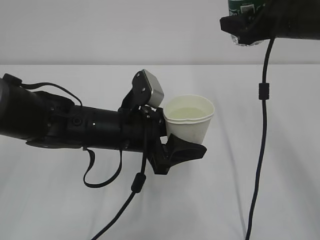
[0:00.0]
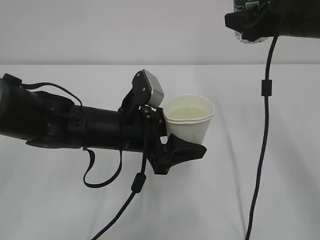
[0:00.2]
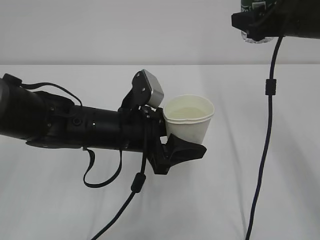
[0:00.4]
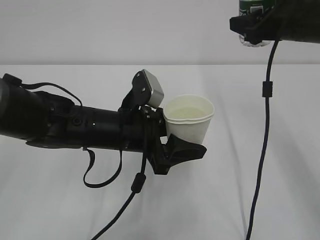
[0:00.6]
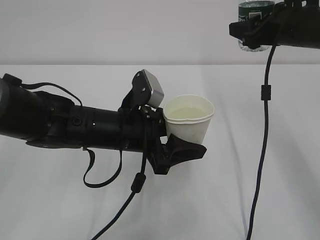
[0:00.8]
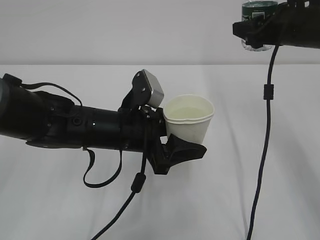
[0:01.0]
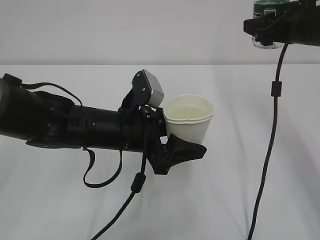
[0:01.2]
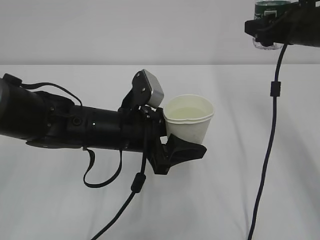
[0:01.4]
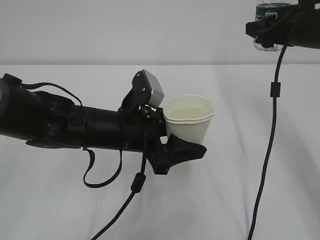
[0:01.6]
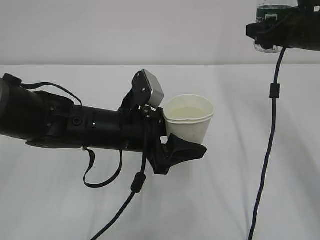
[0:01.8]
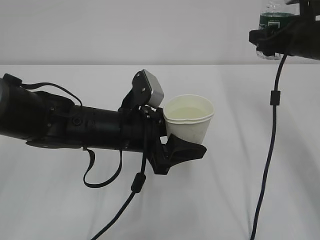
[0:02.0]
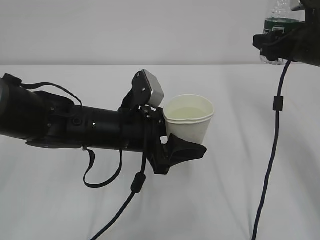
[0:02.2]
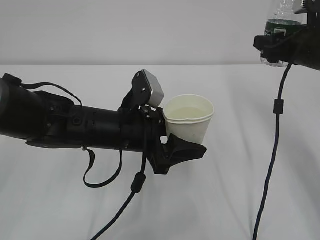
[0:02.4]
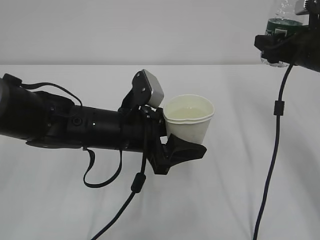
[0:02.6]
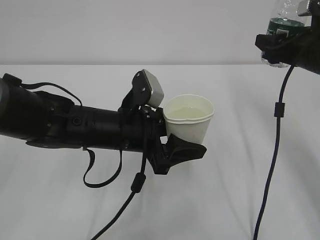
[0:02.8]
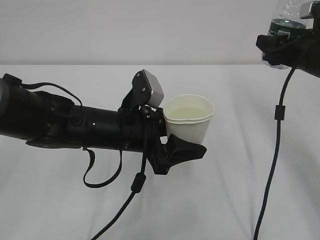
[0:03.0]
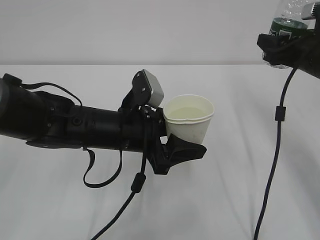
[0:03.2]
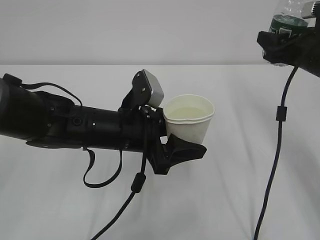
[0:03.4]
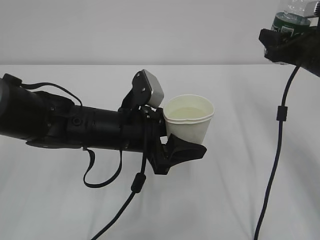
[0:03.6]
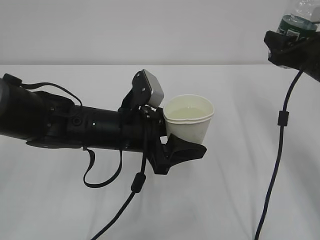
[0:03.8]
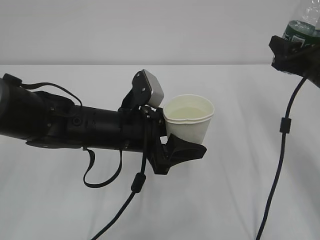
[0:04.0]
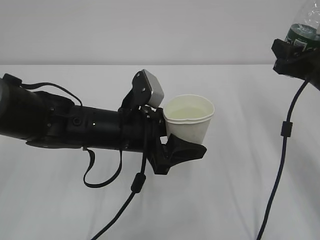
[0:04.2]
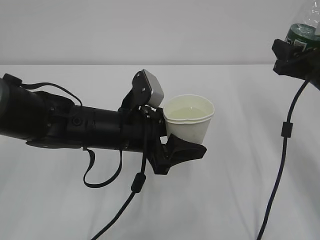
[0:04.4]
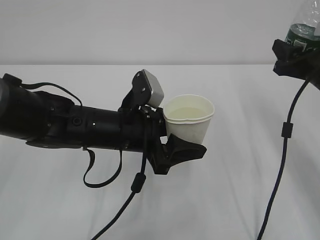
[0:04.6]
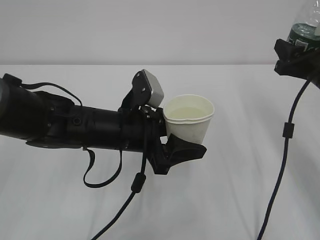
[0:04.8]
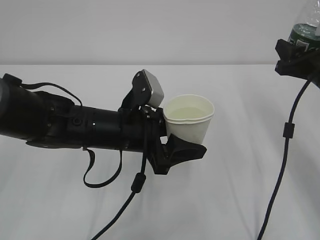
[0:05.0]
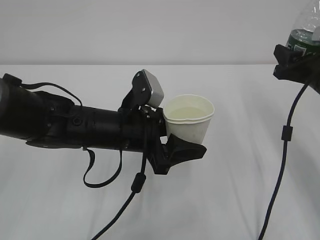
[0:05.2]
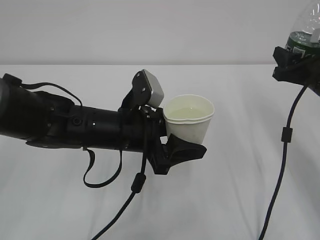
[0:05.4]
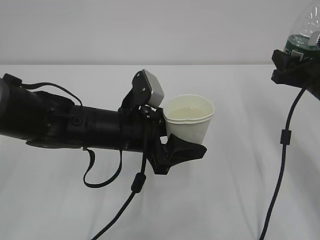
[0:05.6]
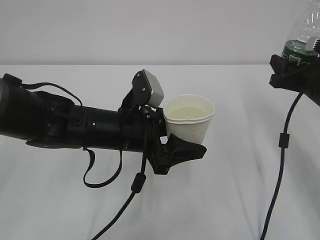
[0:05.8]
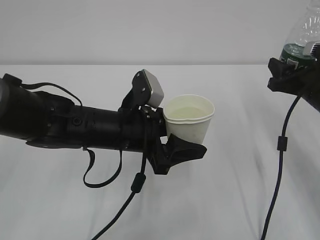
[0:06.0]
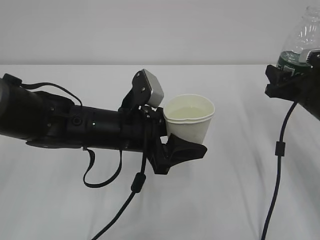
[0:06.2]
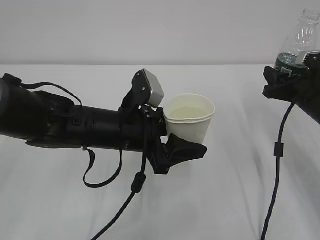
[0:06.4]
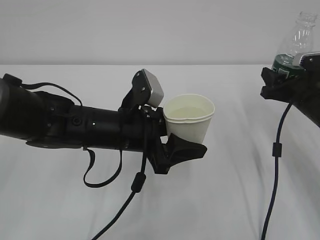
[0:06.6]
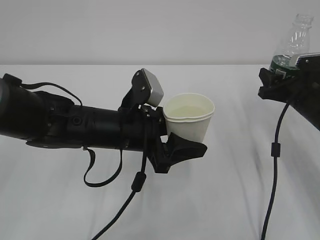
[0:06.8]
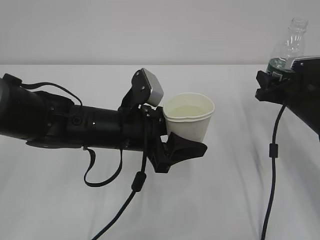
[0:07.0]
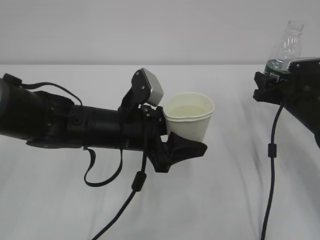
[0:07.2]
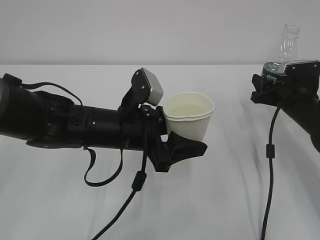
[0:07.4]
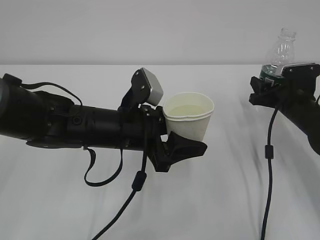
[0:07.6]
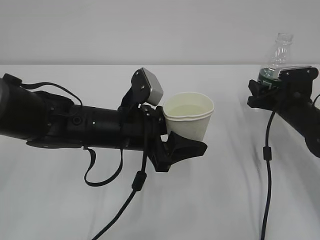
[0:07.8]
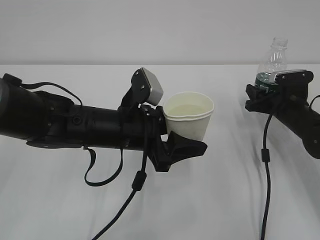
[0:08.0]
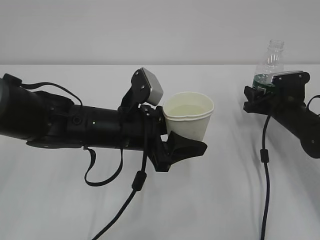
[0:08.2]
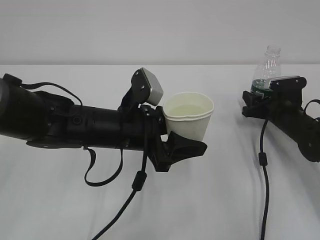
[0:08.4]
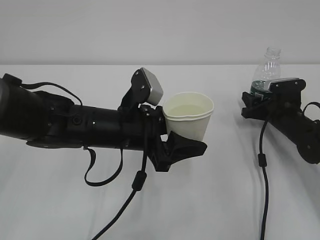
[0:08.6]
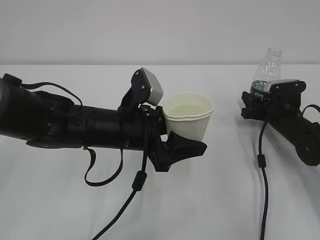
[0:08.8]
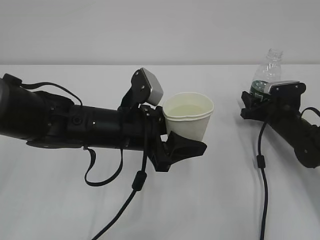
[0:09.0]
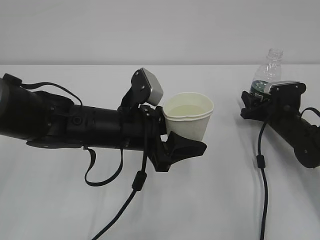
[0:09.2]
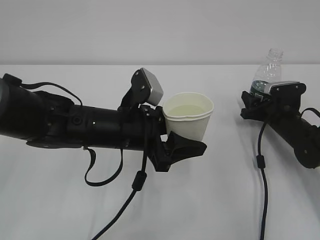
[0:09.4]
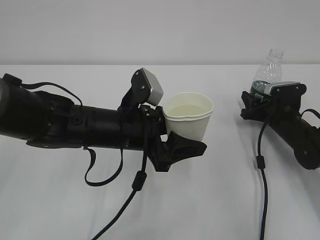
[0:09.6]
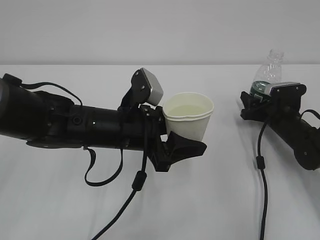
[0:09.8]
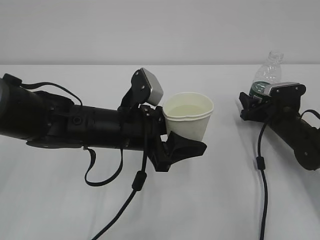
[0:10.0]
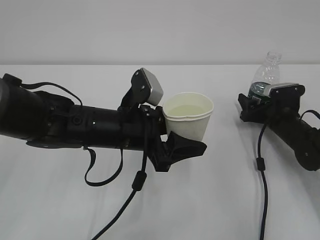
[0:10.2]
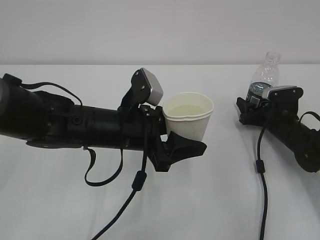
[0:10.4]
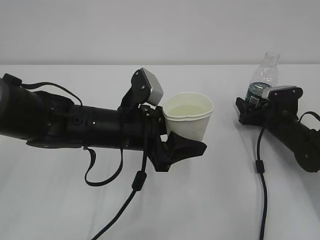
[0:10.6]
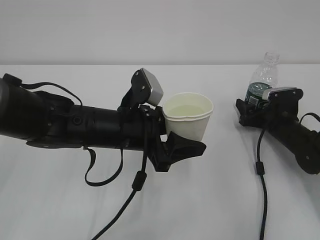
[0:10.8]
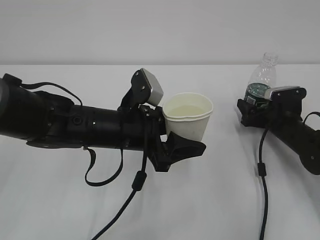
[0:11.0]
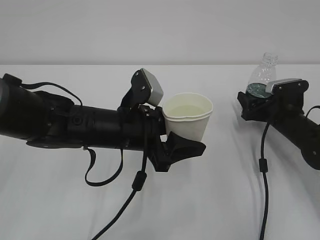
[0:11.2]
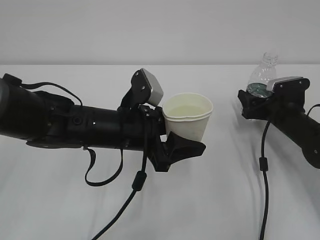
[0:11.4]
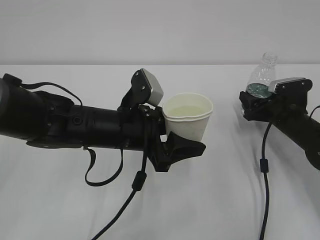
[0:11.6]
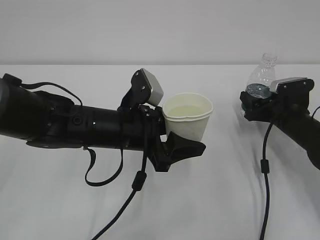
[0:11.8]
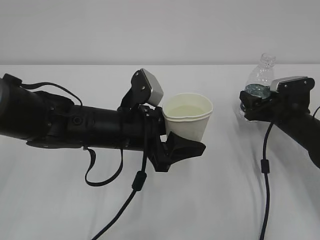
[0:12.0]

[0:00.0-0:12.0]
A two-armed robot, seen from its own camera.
0:00.0 to 0:01.6: The right gripper shifts by some 5 cm.
0:01.6 to 0:03.0: The right gripper changes place by approximately 5 cm.
0:03.0 to 0:06.0: The grippers stay close to where they were, moving slightly.
0:06.0 to 0:07.6: The right gripper travels downward and forward by roughly 10 cm.
0:07.6 to 0:09.0: The right gripper goes about 5 cm downward.
0:09.0 to 0:10.4: The right gripper opens.
0:10.4 to 0:12.0: There are only small adjustments of the grippers.

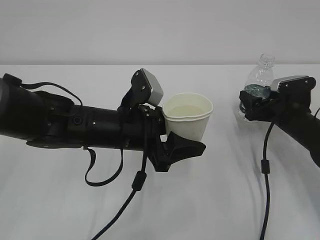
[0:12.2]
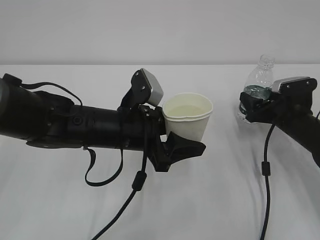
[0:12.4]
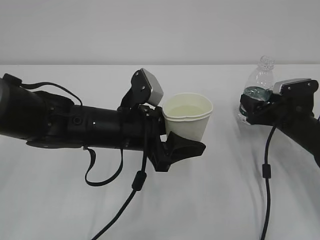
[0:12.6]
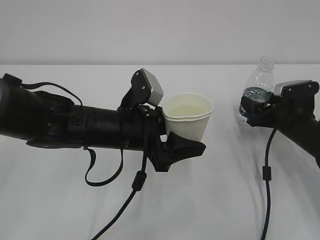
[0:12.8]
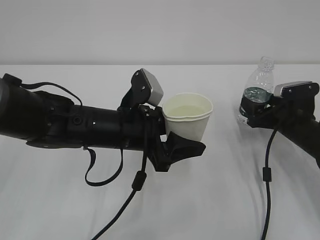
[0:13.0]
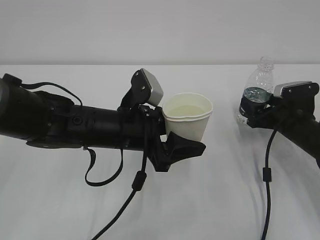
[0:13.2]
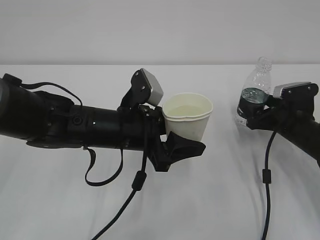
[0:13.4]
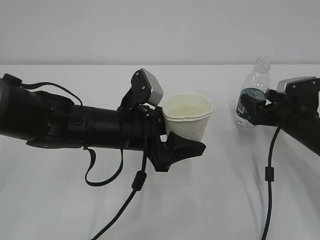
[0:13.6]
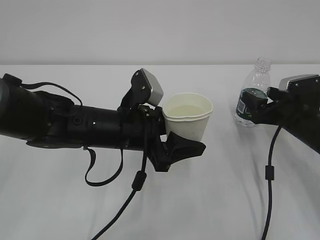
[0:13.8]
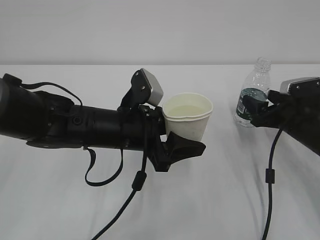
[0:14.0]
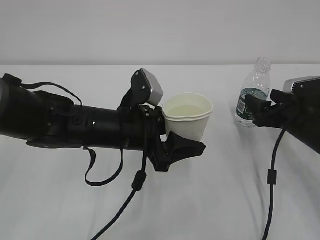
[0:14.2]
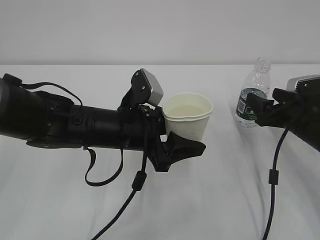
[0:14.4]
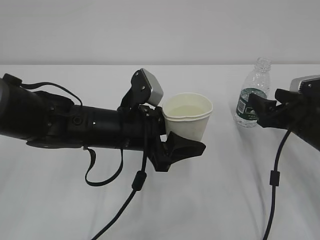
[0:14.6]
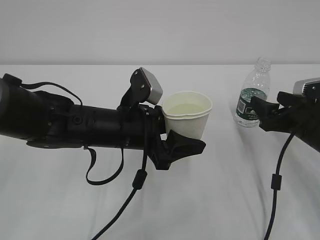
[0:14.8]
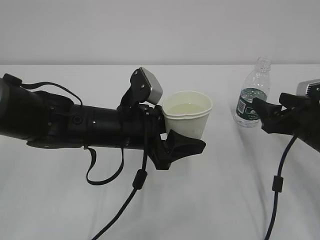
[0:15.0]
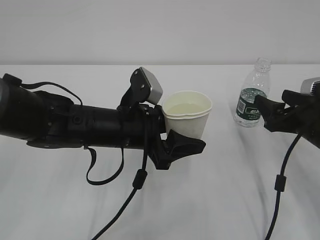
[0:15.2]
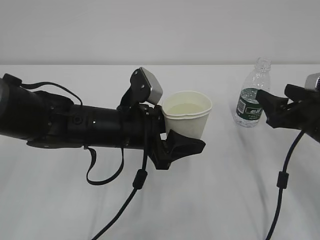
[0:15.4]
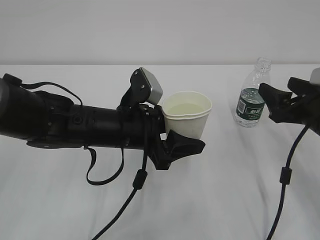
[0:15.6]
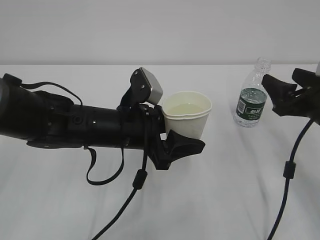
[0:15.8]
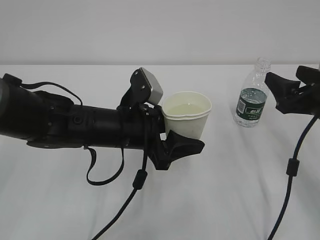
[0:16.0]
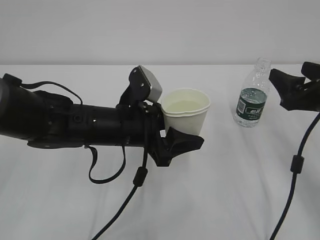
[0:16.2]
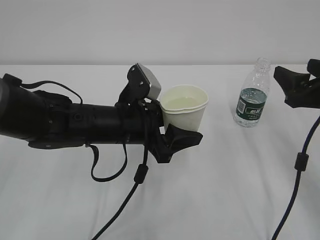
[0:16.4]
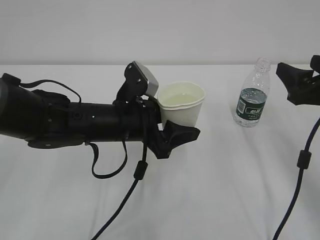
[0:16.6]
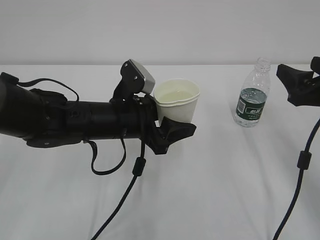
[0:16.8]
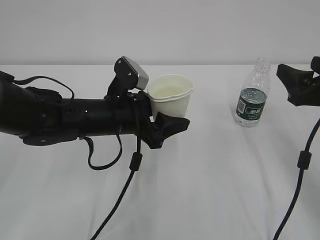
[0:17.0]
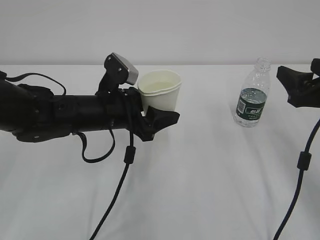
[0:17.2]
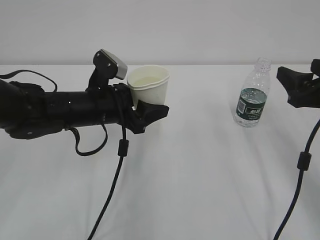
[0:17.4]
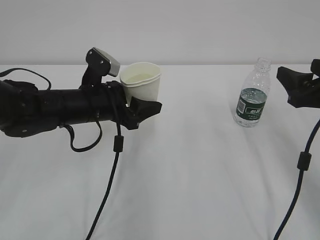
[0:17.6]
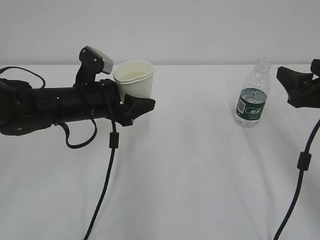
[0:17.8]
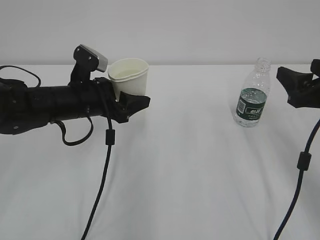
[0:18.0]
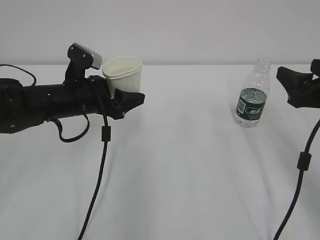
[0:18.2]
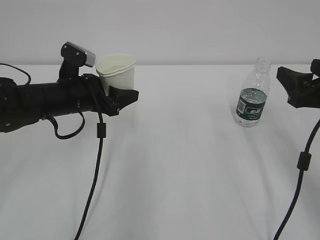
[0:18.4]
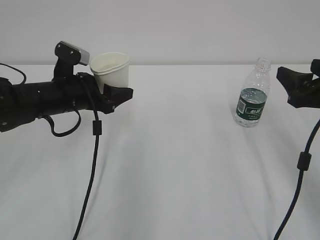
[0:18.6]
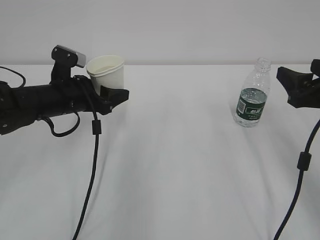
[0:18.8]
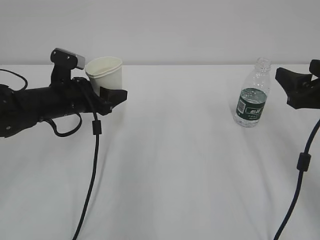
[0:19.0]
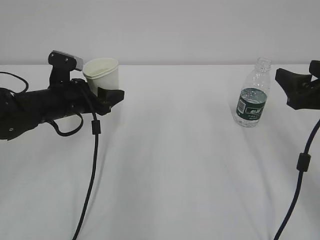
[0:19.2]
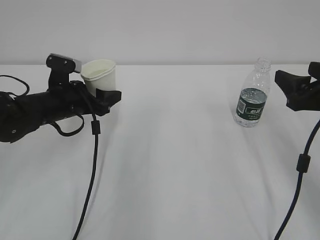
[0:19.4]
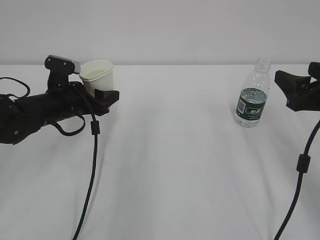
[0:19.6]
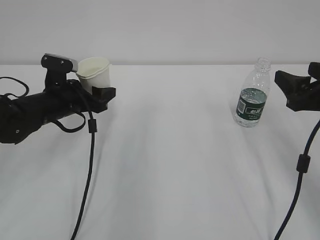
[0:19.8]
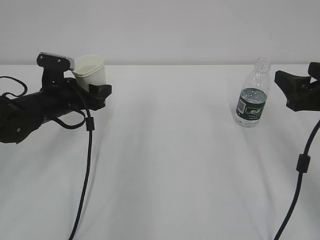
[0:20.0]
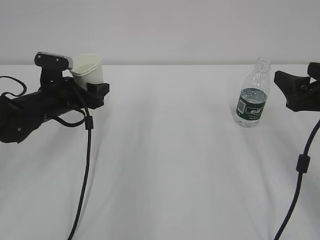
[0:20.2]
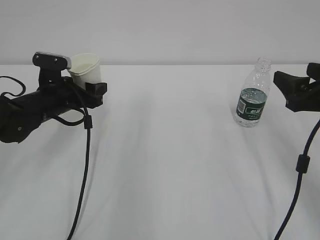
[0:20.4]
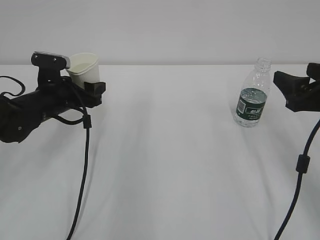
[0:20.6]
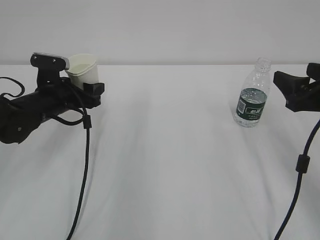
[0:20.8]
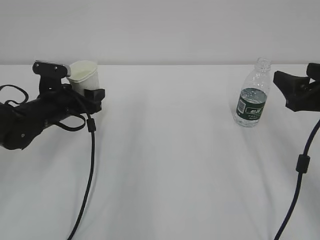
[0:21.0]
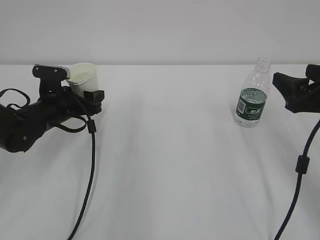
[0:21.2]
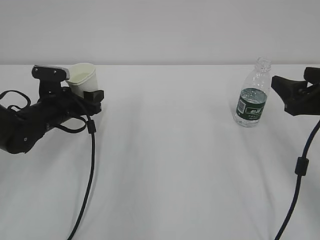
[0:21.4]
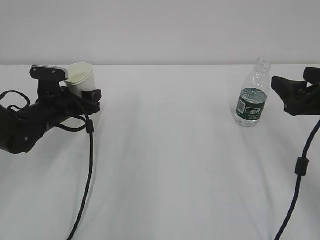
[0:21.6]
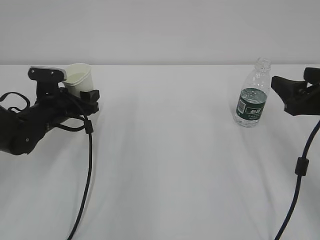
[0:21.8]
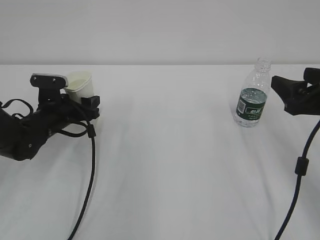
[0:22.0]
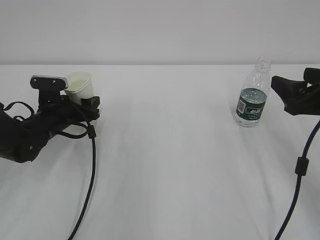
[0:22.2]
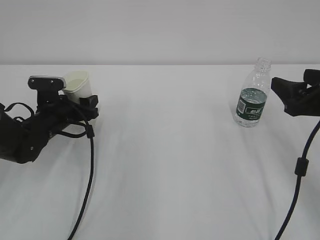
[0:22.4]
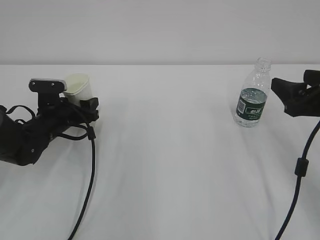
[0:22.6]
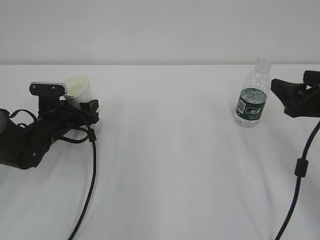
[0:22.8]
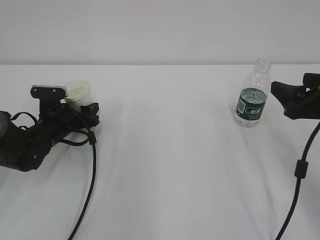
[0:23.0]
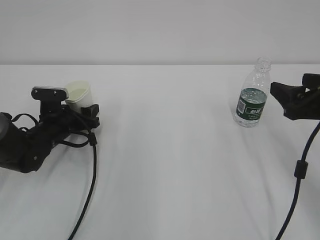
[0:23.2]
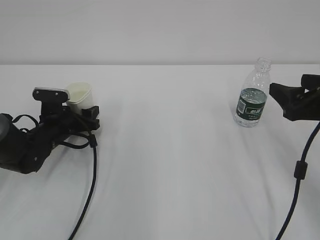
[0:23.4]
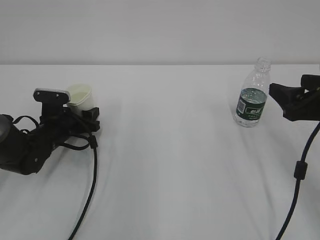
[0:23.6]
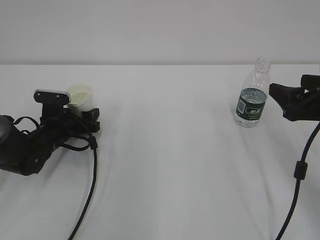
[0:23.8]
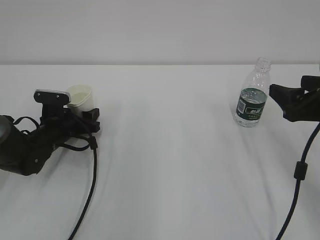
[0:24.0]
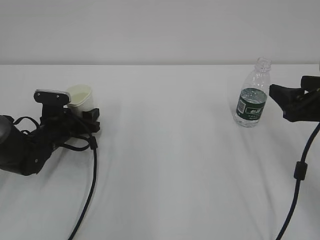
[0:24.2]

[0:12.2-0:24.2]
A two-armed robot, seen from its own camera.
0:12.2 to 0:13.8: The grippers move only a little.
0:13.8 to 0:15.2: The right gripper goes approximately 5 cm backward.
0:15.2 to 0:16.6: The right gripper heads upward, covering approximately 10 cm.
0:16.6 to 0:18.2: The left gripper travels to the left and forward by some 10 cm.
0:18.2 to 0:19.8: The left gripper changes place by some 5 cm.
0:19.8 to 0:21.2: The grippers move only a little.
0:21.2 to 0:24.2: The grippers make only small movements.
